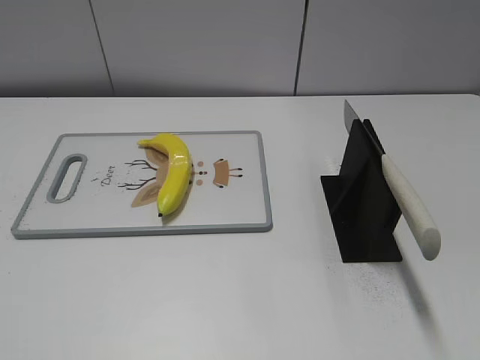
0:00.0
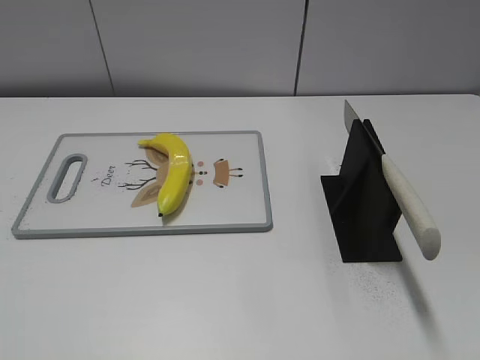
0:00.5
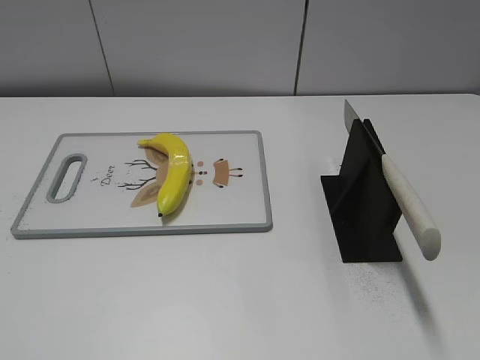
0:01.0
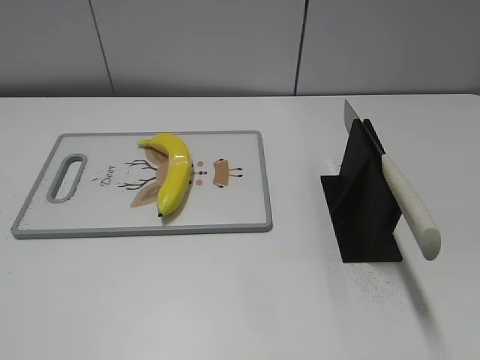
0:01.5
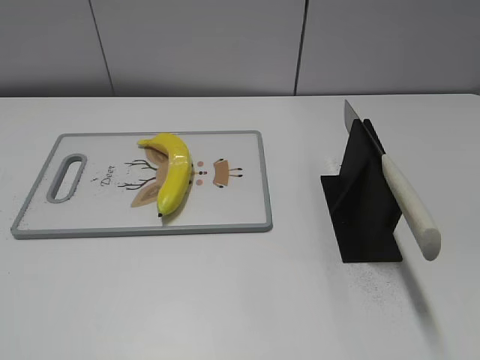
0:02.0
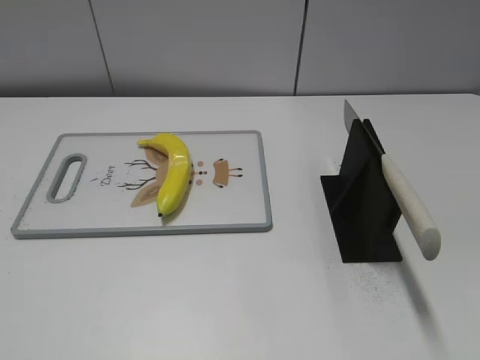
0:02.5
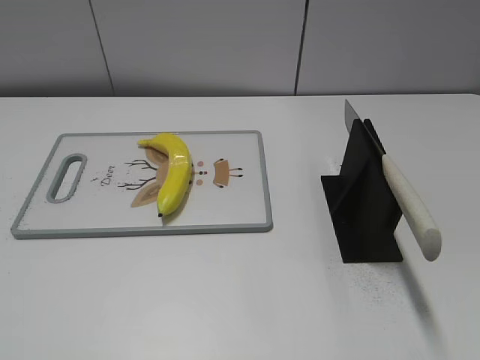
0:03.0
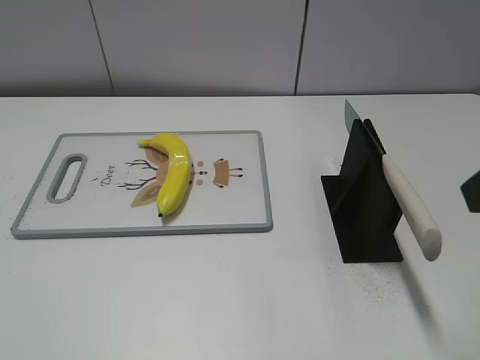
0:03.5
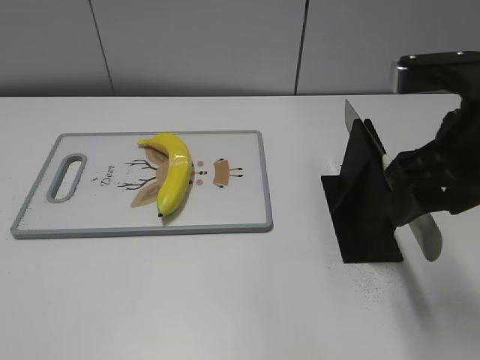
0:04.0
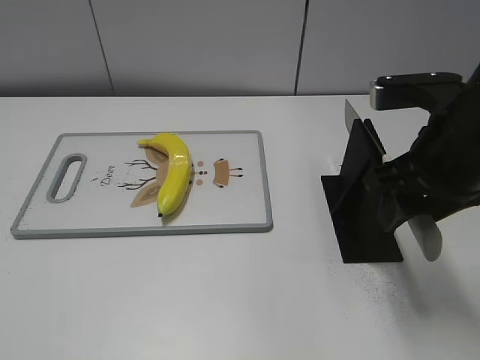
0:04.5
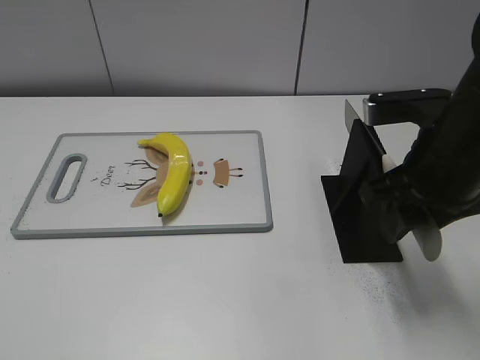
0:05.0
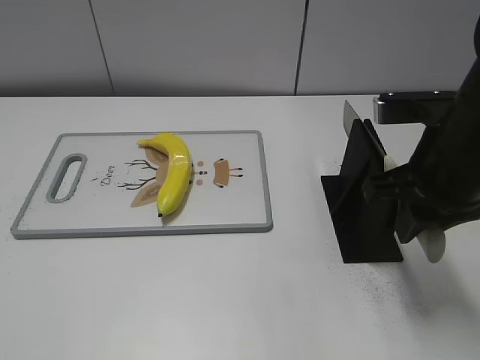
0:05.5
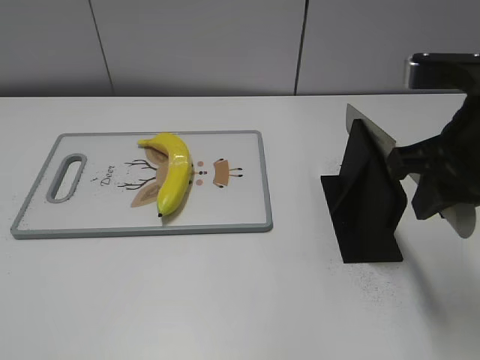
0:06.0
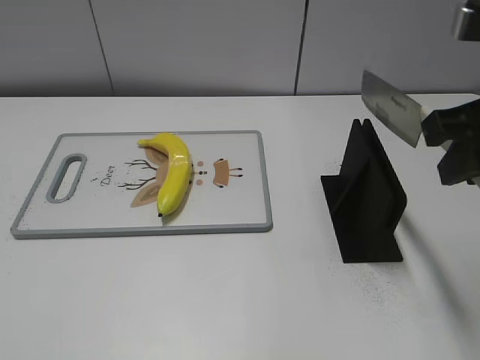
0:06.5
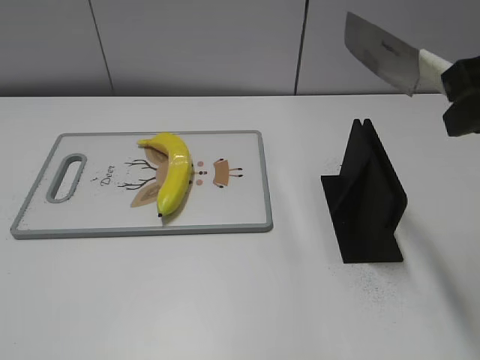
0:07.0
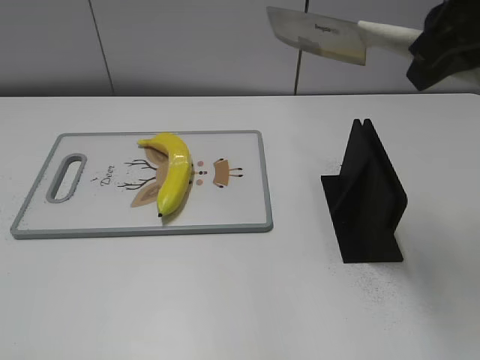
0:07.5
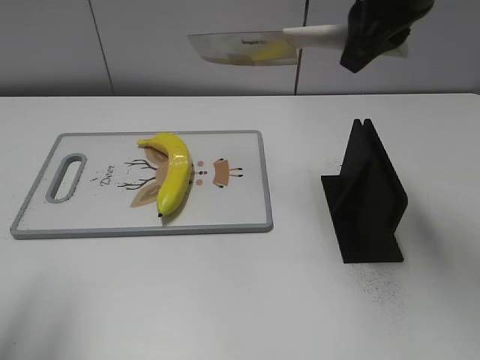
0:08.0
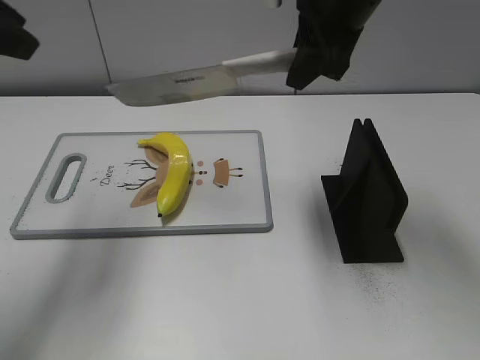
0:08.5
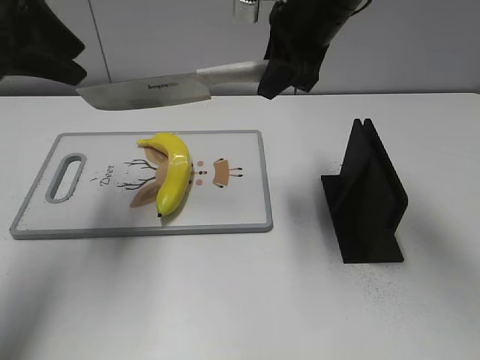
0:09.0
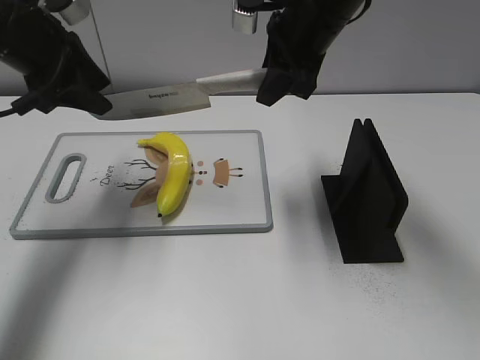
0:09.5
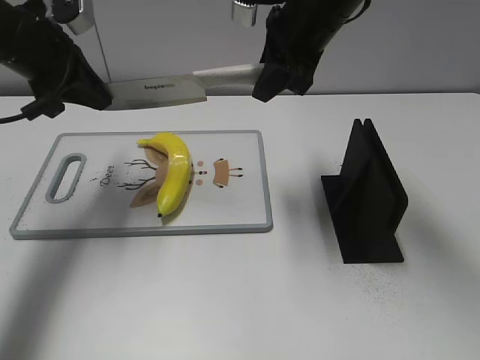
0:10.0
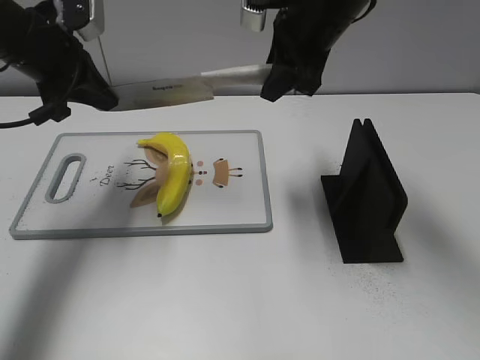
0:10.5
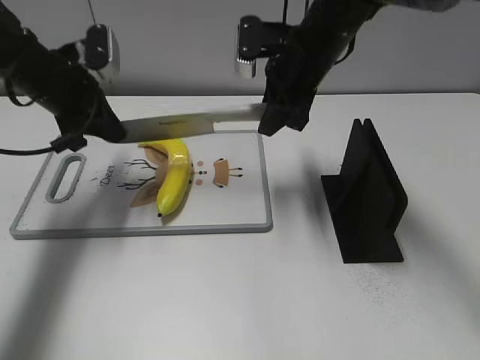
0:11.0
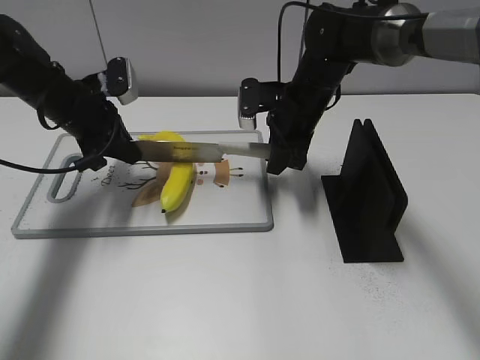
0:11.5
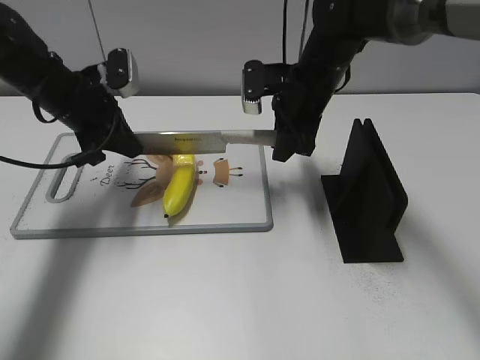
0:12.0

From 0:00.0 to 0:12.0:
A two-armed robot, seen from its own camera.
Task of the whole recording: cut plastic banana.
Step, from 0:00.0 to 0:06.0: Grab the knife handle with your right hand.
From 0:02.0 to 0:04.0: The right gripper moves forward and to the left, roughly 25 cm.
From 0:04.0 to 0:06.0: The right gripper closes up.
From 0:06.0 to 0:08.0: The right gripper is displaced forward, upward and to the left by about 15 cm. The left gripper is displaced forward and upward by some 20 cm.
From 0:08.0 to 0:10.0: The left gripper goes about 25 cm forward and downward, and closes its fingers; the right gripper heads downward and forward, covering about 10 cm.
From 0:10.0 to 0:12.0: The two grippers go some 10 cm downward.

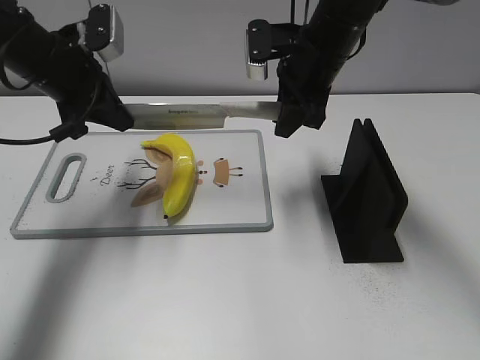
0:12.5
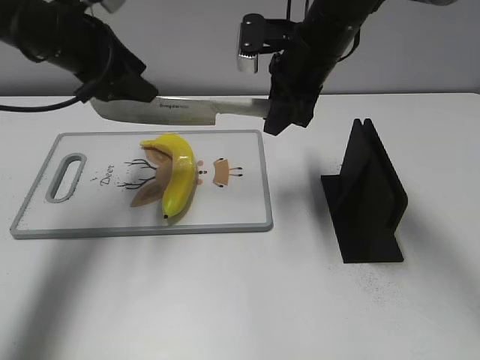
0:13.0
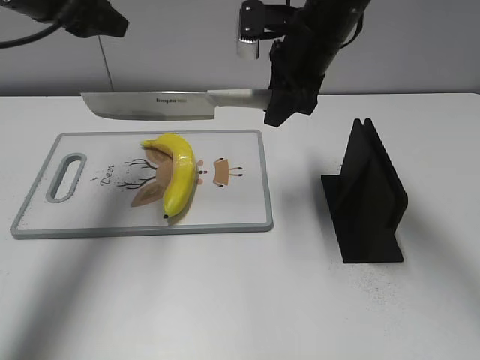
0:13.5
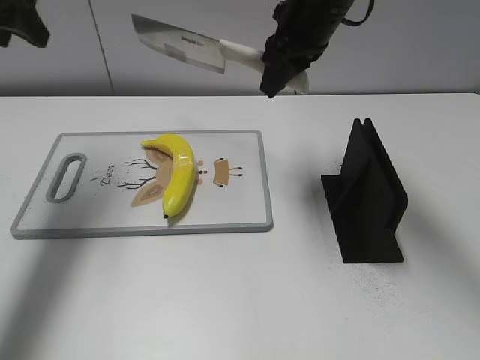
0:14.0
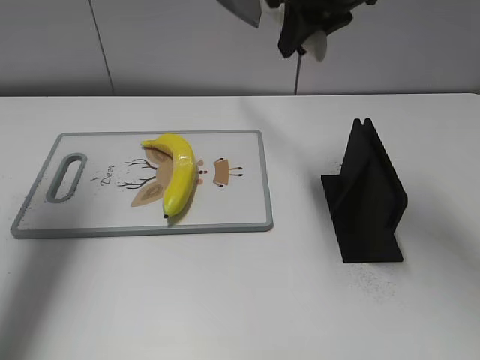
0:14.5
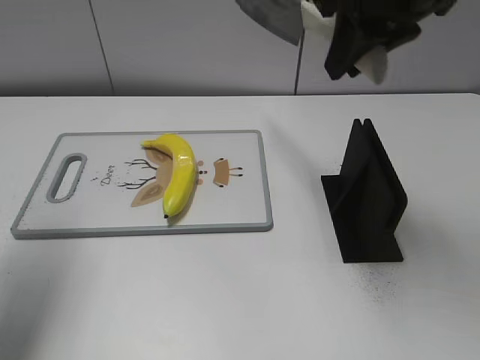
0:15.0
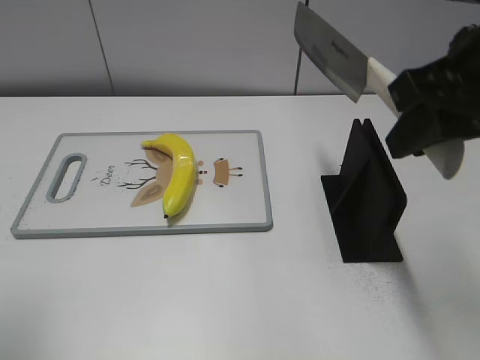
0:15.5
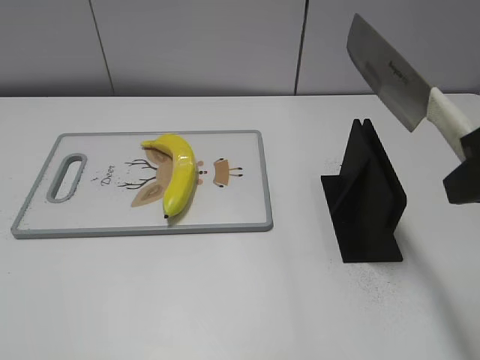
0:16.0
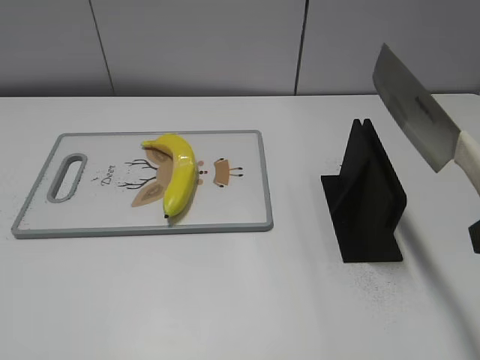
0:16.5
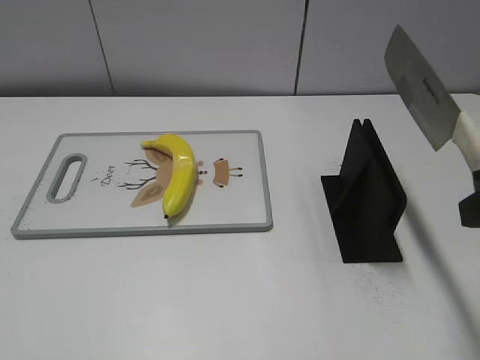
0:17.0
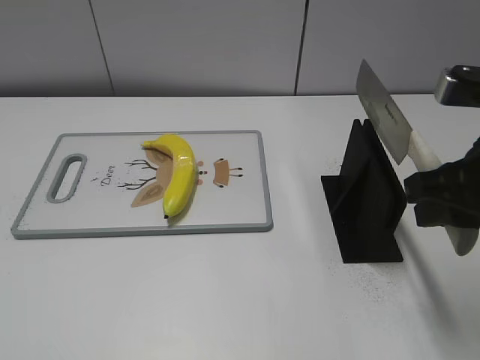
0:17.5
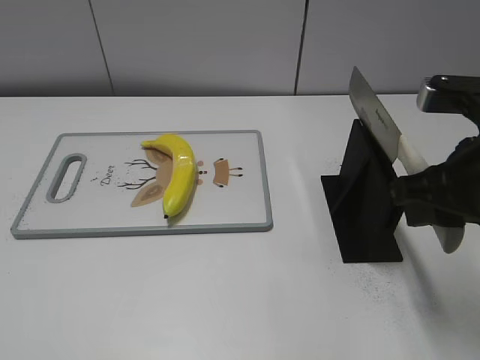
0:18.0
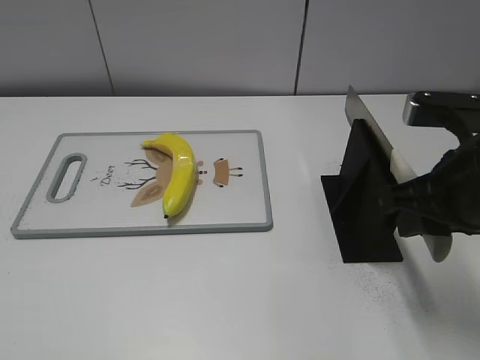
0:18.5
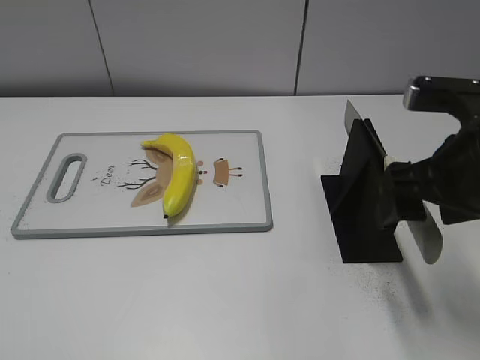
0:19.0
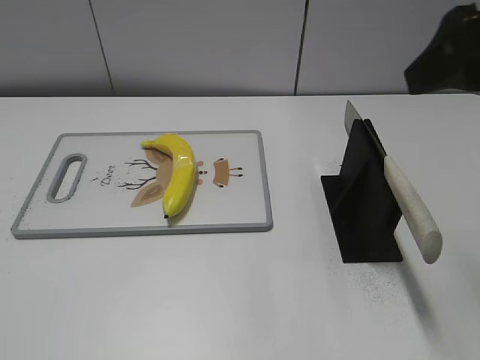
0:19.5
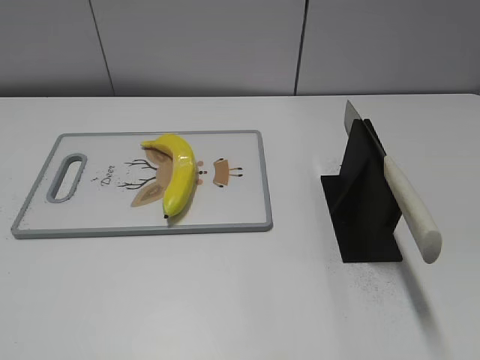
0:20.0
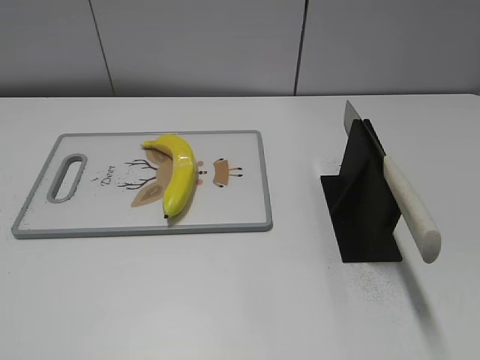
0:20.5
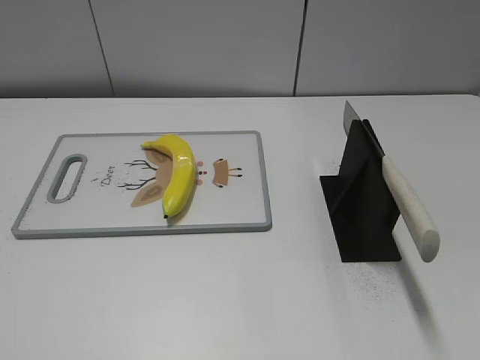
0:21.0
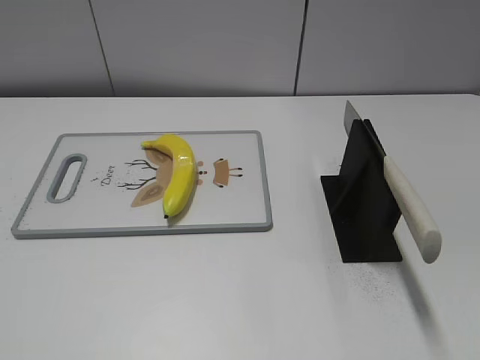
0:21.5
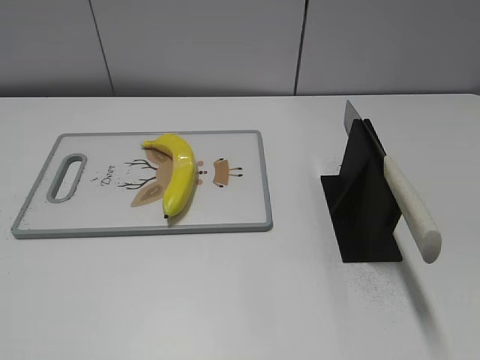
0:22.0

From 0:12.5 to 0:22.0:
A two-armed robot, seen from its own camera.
Task of the whole recording: cut plastic banana.
Step, from 0:13.0 to 0:14.0: Cut the banana with your right hand.
Step, from 0:14.5 to 0:15.5: Lift the knife with your right hand.
Step, from 0:16.0 to 0:22.0: Place the knife on the storage rack with your right hand.
From 0:12.5 to 0:14.5: The right gripper heads upward, covering about 10 cm. Meanwhile the left gripper moves upward and to the left, some 15 cm, and opens up.
From 0:14.5 to 0:16.5: The left gripper heads backward, covering roughly 35 cm, while the right gripper heads backward and to the right, covering about 30 cm.
From 0:16.5 to 0:18.0: The right gripper is displaced forward and downward by approximately 10 cm.
From 0:18.0 to 0:20.0: The right gripper heads upward and backward, covering about 20 cm, and opens up.

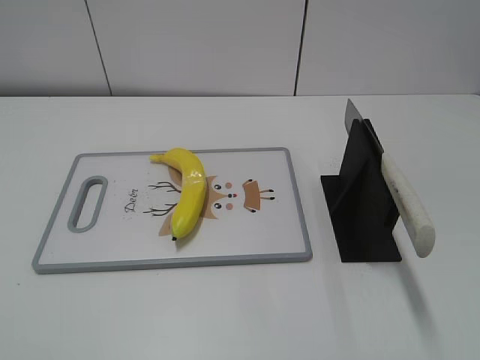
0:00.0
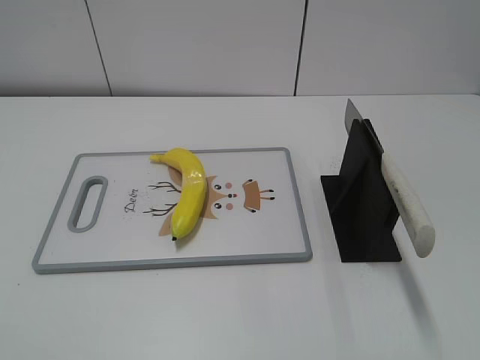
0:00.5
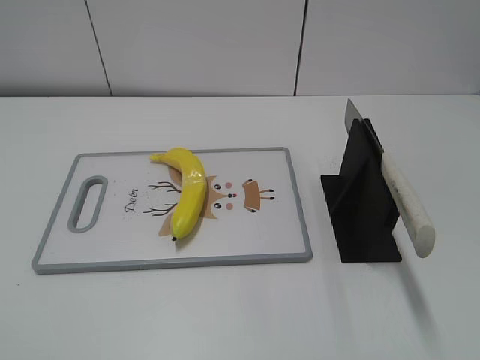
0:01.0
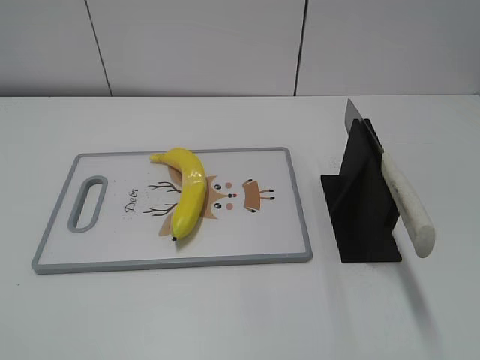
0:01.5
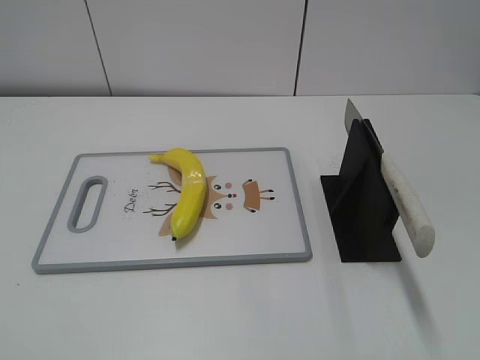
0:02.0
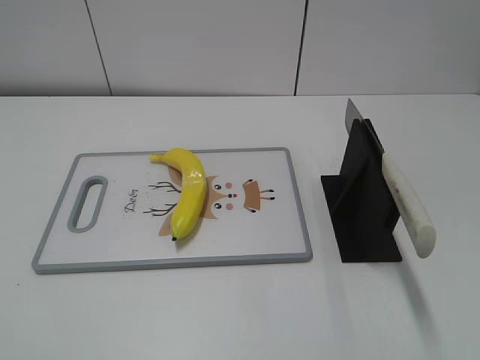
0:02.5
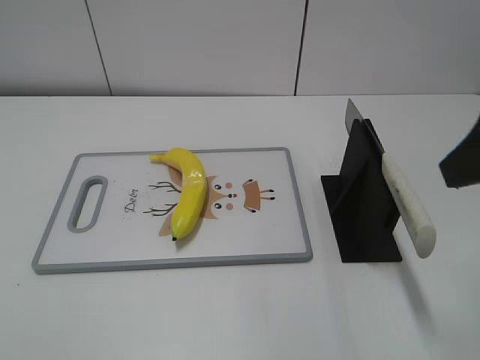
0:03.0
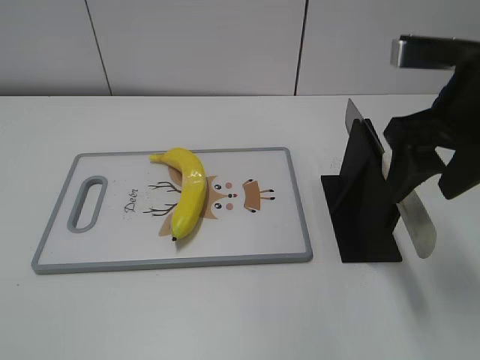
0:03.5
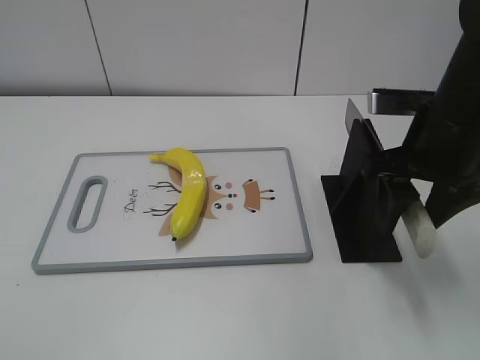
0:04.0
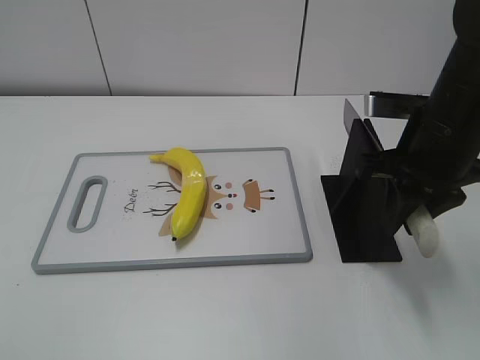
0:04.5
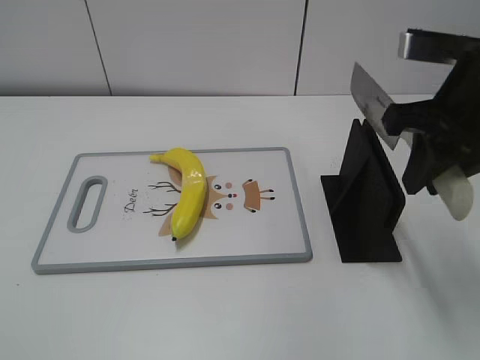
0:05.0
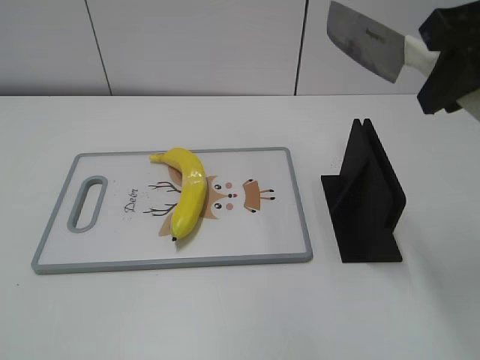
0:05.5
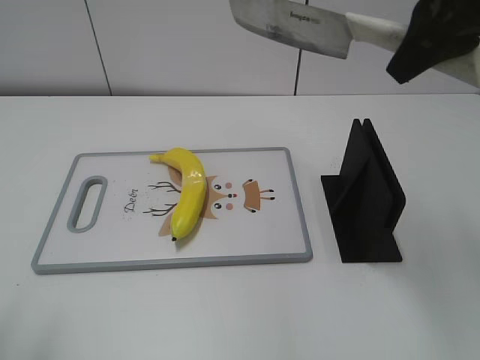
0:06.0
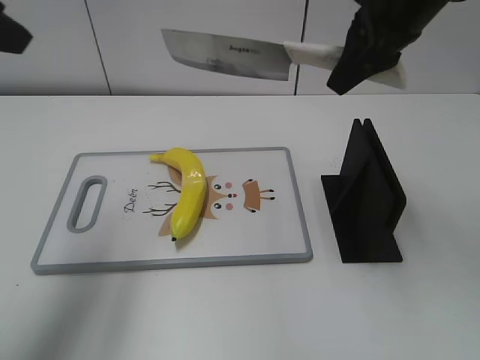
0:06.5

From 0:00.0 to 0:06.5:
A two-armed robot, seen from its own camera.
Task of the whole recording: cut plastic banana.
Step, from 0:00.0 to 0:05.0: Grab the knife handle with your right hand.
From 0:02.0 to 0:04.5: The right gripper travels forward by approximately 30 cm, and closes its fingers.
From 0:04.5 to 0:06.5: The left gripper goes about 25 cm forward and upward. Meanwhile the right gripper moves upward and forward, approximately 15 cm.
